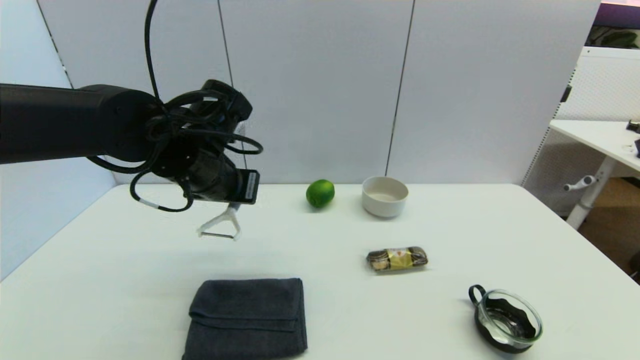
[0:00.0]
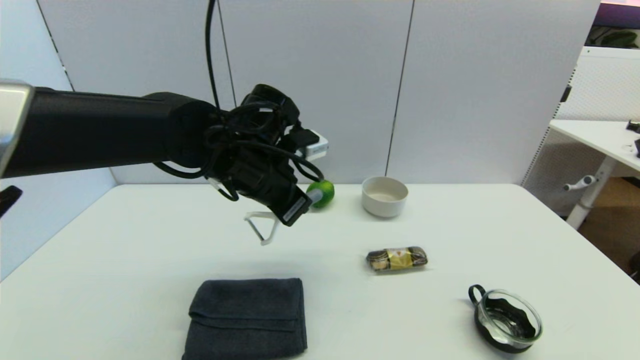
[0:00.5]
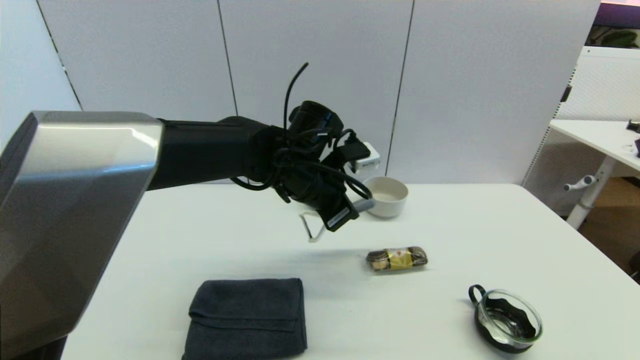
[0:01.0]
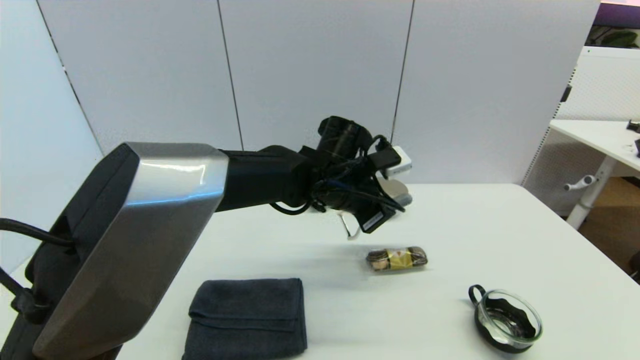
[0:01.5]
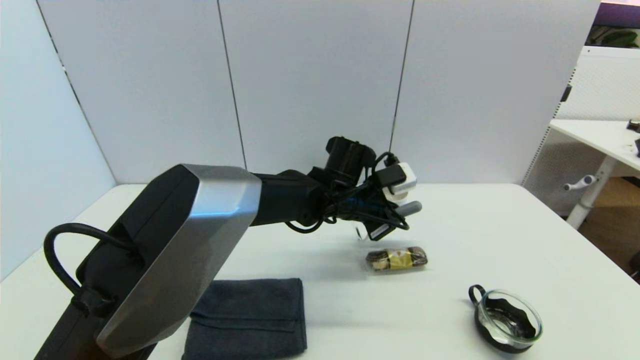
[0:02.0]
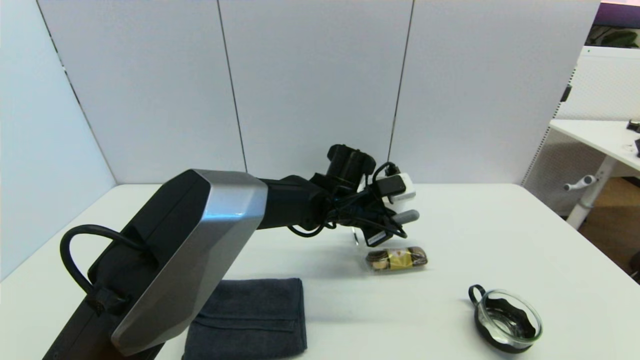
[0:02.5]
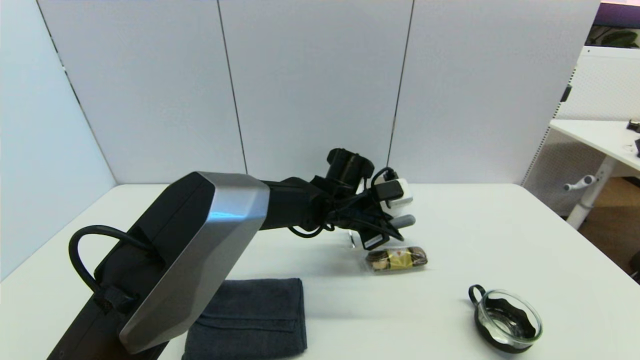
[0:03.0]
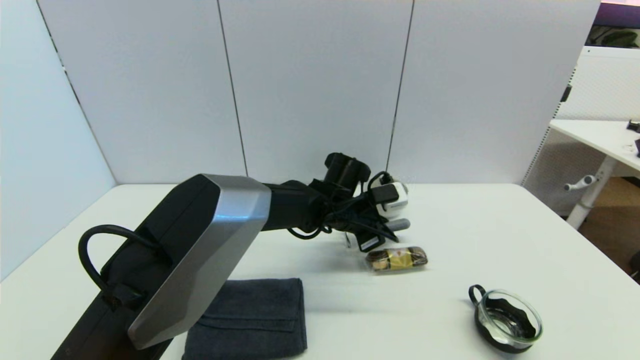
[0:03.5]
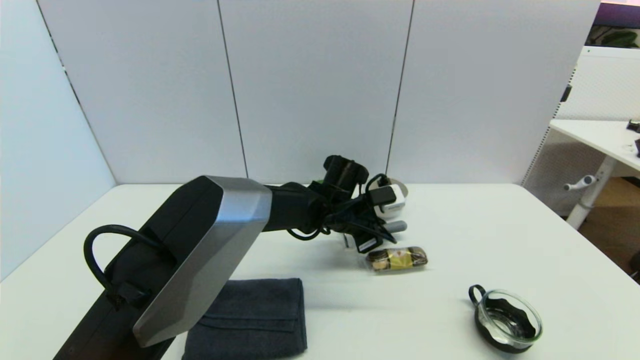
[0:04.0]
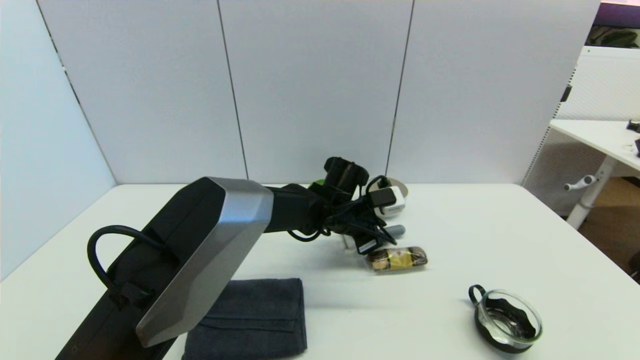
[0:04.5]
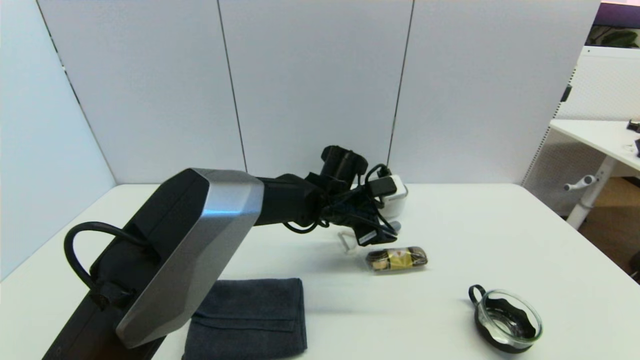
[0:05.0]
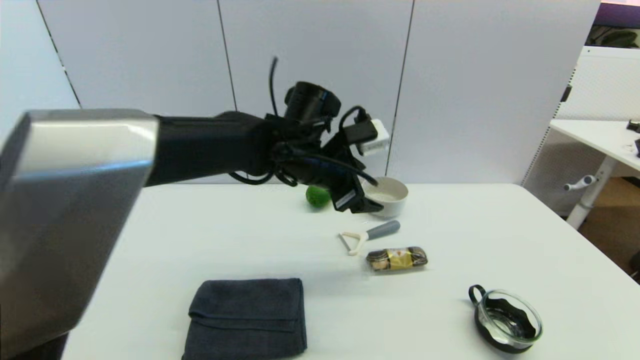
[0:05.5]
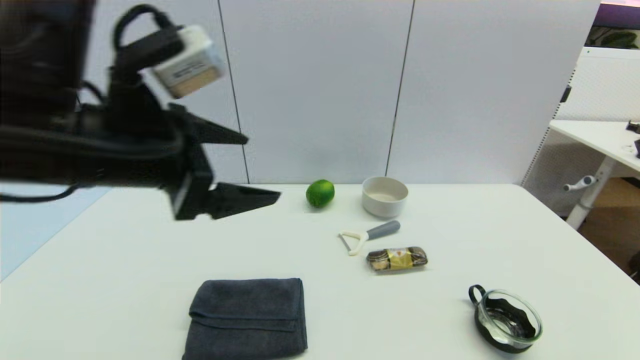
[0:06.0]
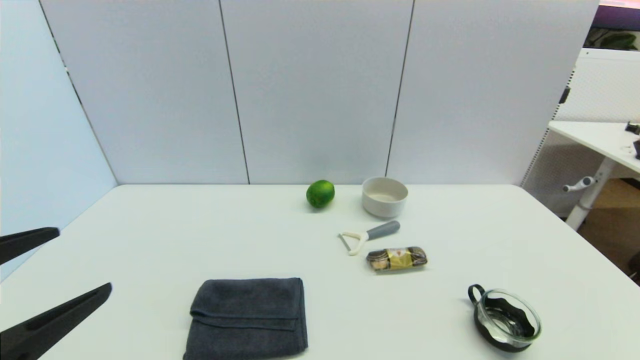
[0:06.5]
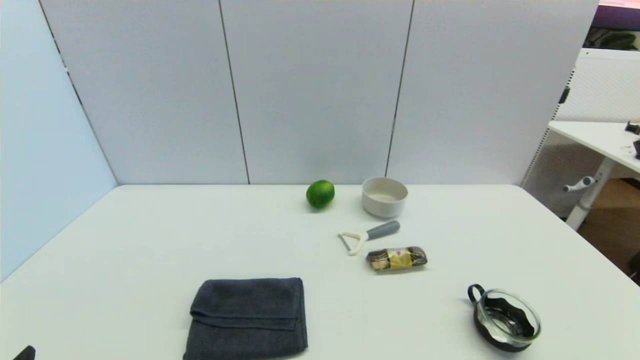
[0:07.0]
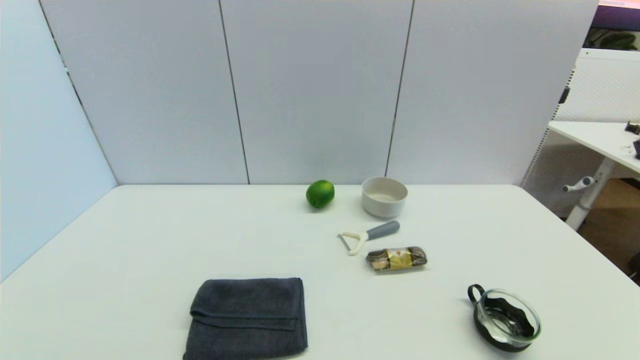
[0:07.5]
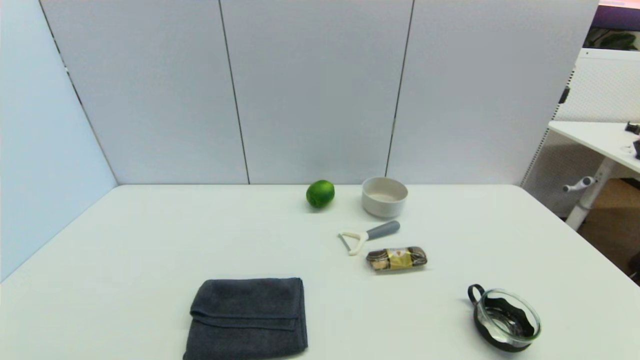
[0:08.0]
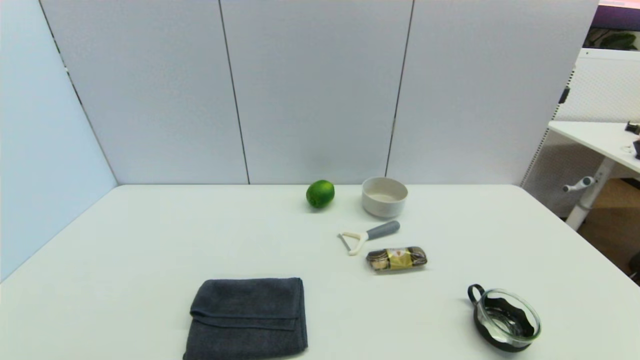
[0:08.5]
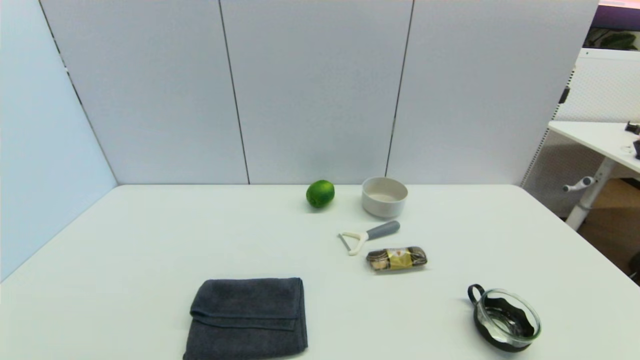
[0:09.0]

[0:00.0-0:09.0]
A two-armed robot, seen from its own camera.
Step, 0:00.0 to 0:05.0: Place the peeler on the table with left gripper.
0:00.0 to 0:02.0: The left gripper heads to the right and downward, covering about 20 cm.
0:02.0 to 0:04.5: The grippers stay close to where they were, moving slightly.
0:04.5 to 0:07.0: The left gripper is displaced backward and to the left by some 50 cm, and opens.
